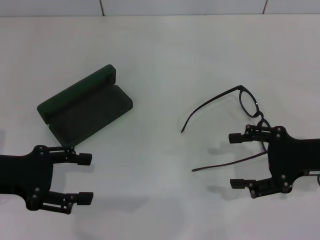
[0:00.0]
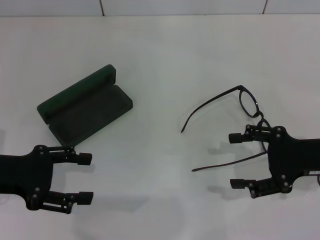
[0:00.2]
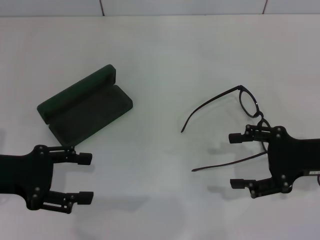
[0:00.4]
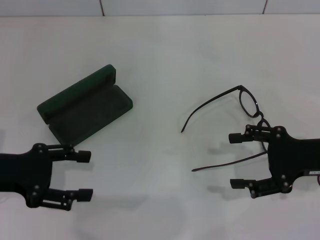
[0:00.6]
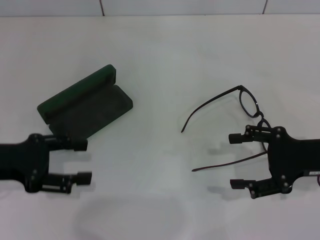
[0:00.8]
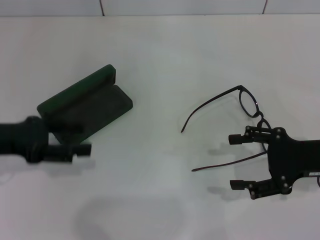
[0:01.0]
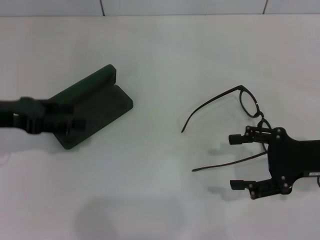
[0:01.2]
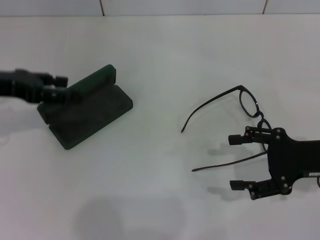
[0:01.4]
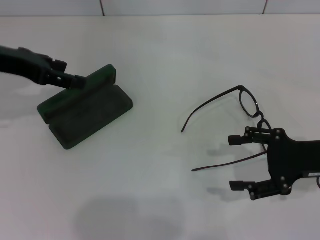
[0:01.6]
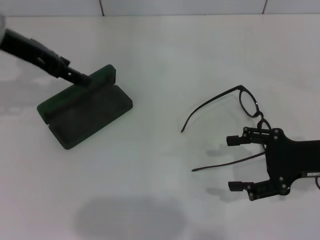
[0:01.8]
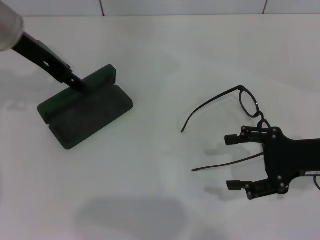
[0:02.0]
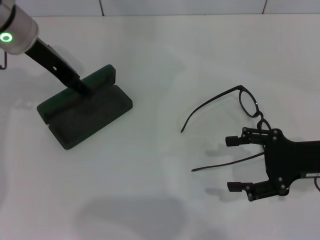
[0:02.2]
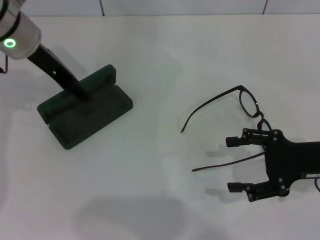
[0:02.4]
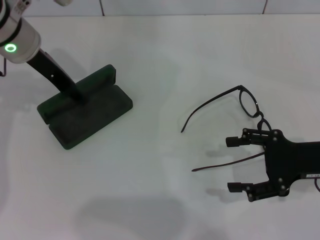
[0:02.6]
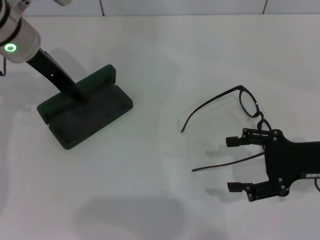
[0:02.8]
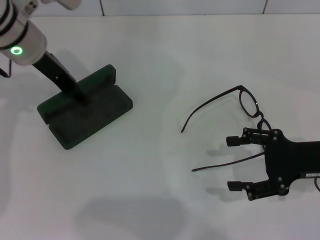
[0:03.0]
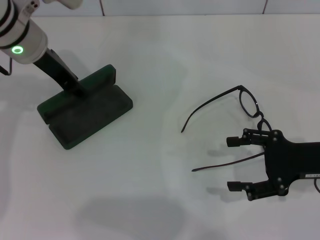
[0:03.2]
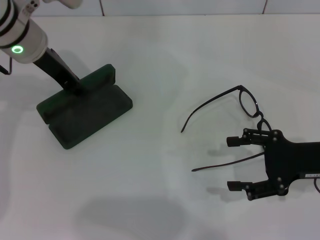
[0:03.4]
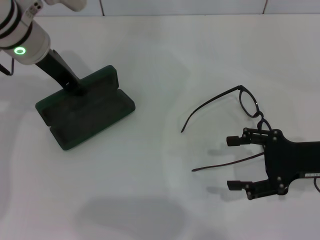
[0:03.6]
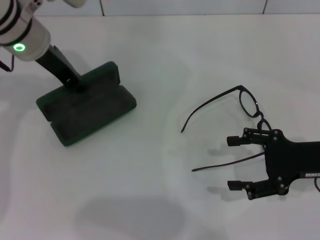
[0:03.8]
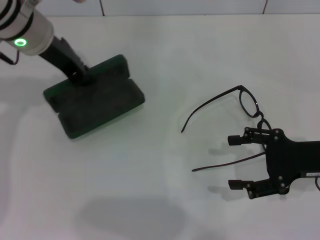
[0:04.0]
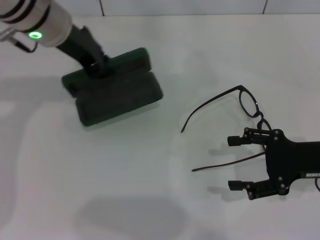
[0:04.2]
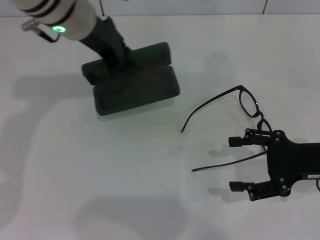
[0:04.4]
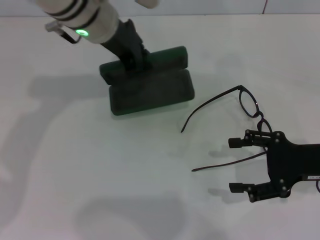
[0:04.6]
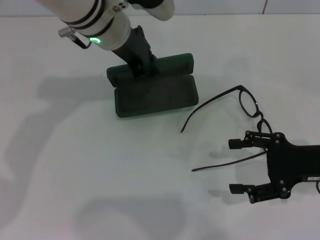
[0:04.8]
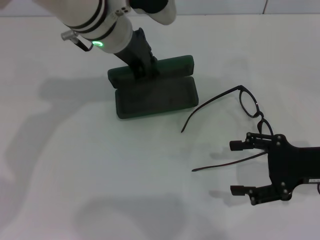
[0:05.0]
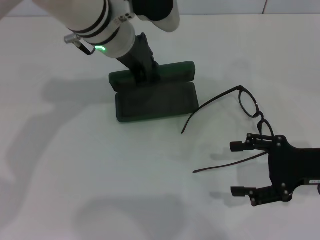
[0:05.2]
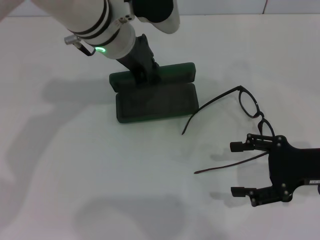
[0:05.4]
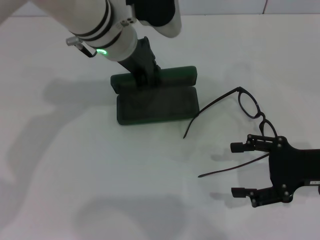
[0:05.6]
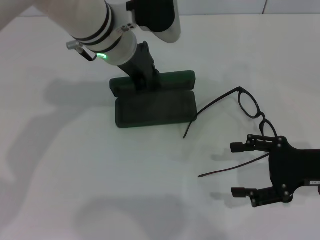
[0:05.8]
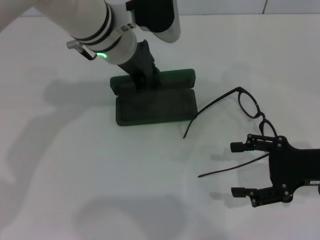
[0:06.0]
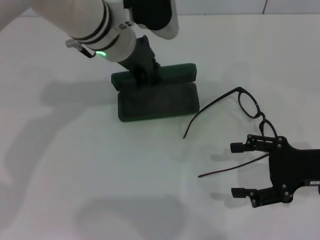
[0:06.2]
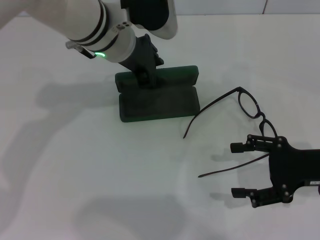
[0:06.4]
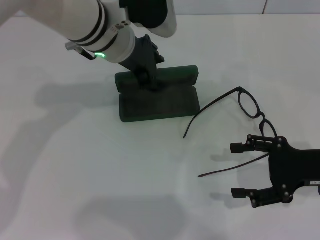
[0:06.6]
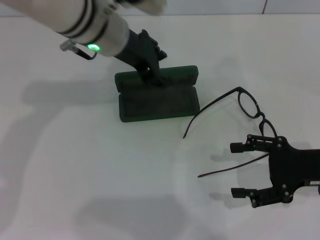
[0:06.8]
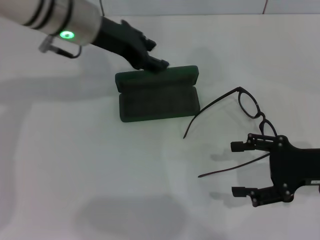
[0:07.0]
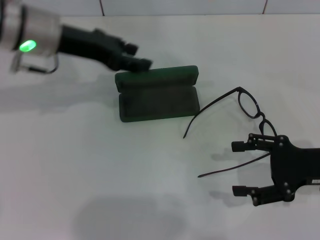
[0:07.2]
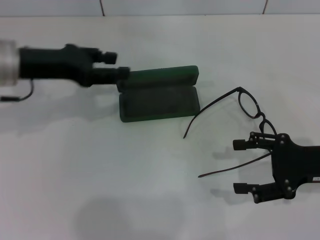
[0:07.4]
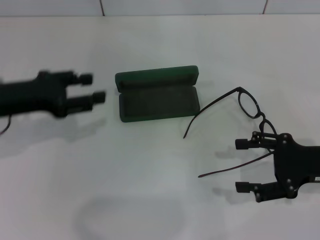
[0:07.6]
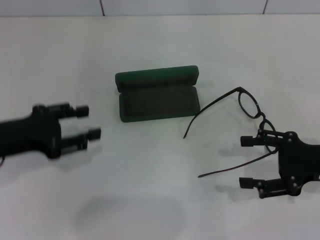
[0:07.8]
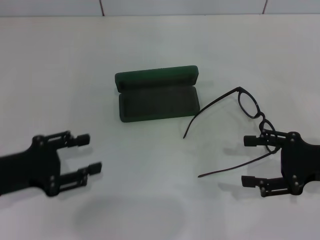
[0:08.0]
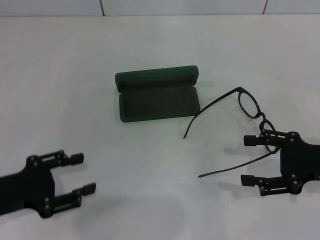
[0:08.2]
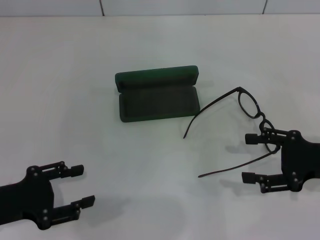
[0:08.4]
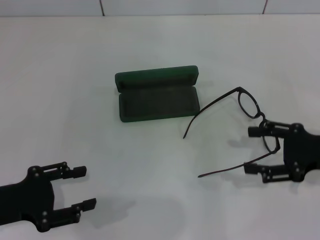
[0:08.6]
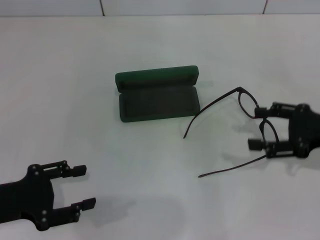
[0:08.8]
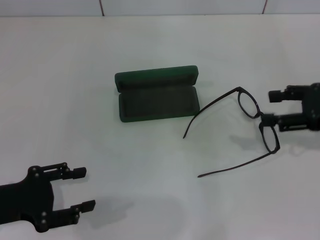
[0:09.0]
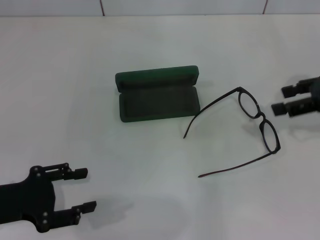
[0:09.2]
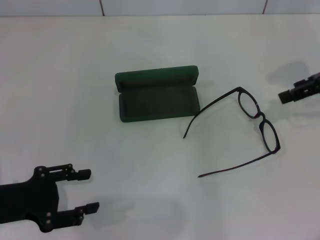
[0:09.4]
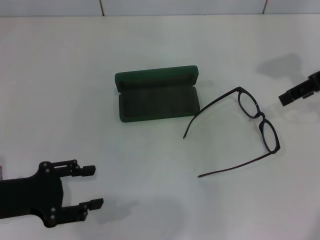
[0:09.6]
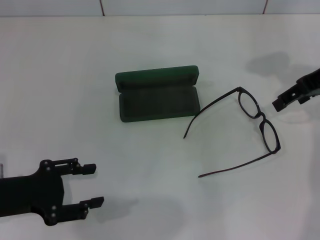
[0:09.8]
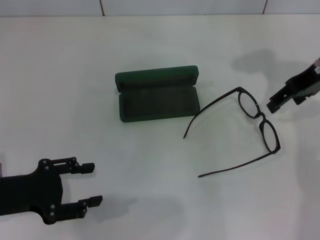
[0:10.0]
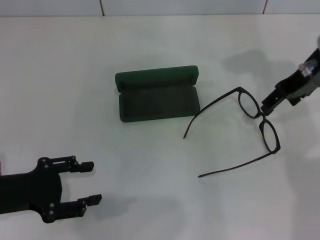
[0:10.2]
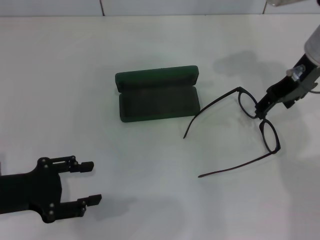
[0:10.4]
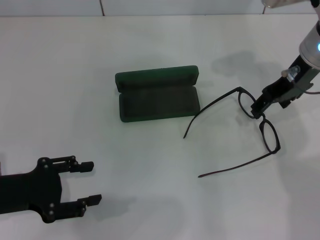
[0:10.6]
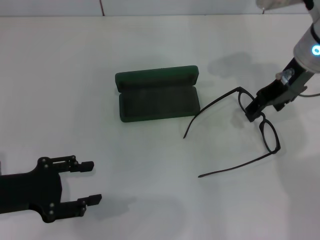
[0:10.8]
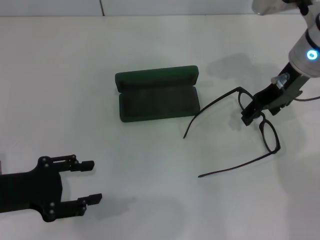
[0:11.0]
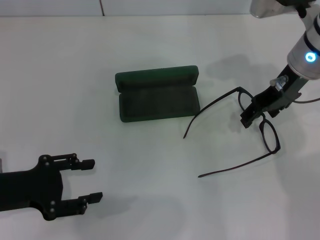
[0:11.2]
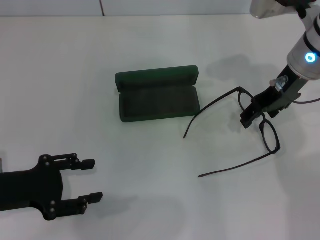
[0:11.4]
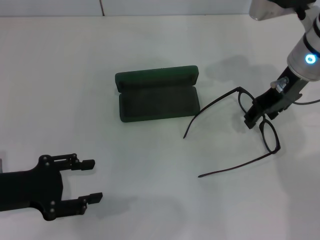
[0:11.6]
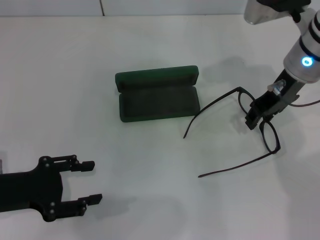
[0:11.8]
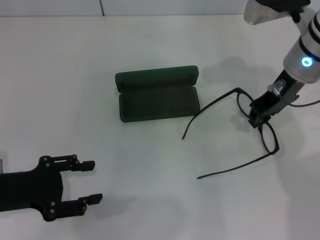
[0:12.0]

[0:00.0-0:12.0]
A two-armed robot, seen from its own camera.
Step, 0:00.0 to 0:03.2: Grab the glasses case with your left hand.
Step, 0:03.6 to 0:06.4: Place the glasses case in the center of the table with your left hand.
0:00.0 to 0:01.6: The left gripper is displaced forward and upward by approximately 15 cm.
0:01.6 to 0:03.0: The left gripper goes about 10 cm to the right.
0:03.0 to 0:04.4: The left gripper travels to the right by roughly 5 cm, and closes.
0:04.4 to 0:06.0: The left gripper moves to the right, approximately 5 cm.
0:06.0 to 0:07.6: The left gripper shifts roughly 20 cm to the left and backward, and opens up.
0:07.6 to 0:09.0: The left gripper goes roughly 15 cm backward and downward. Meanwhile the right gripper travels upward and forward by some 10 cm.
0:09.0 to 0:10.4: The right gripper is displaced to the left and forward by some 15 cm.
0:10.4 to 0:12.0: The right gripper closes its fingers.

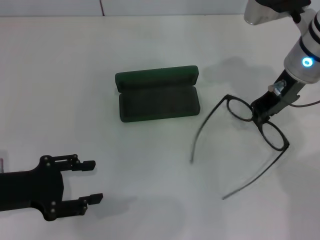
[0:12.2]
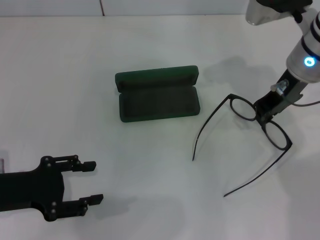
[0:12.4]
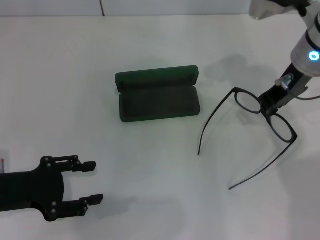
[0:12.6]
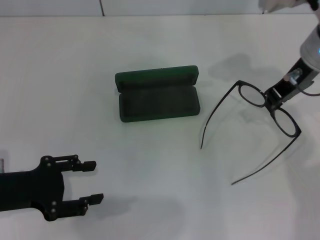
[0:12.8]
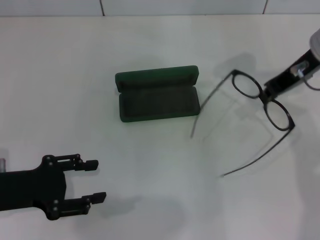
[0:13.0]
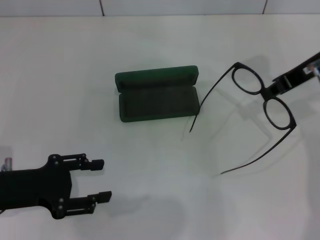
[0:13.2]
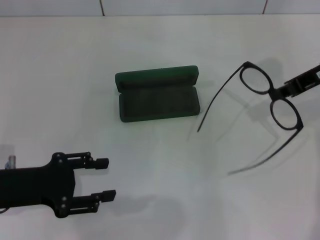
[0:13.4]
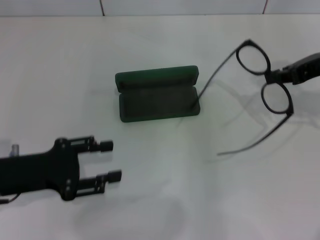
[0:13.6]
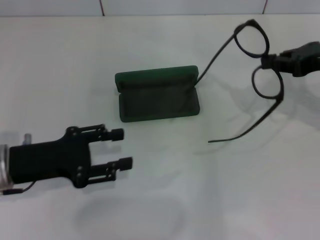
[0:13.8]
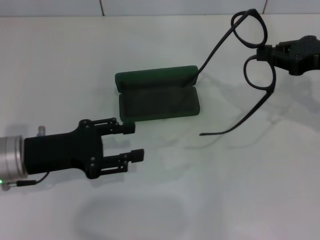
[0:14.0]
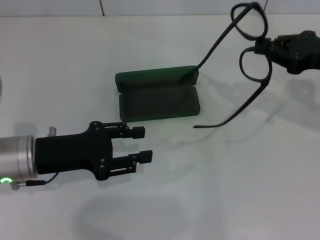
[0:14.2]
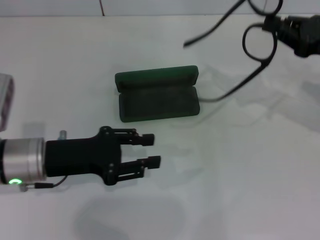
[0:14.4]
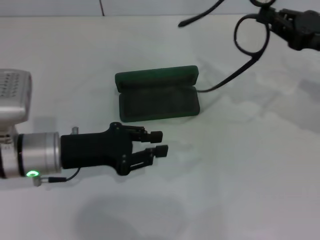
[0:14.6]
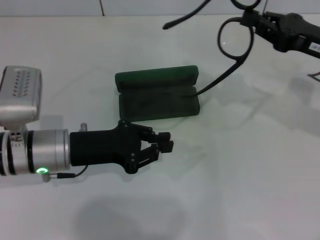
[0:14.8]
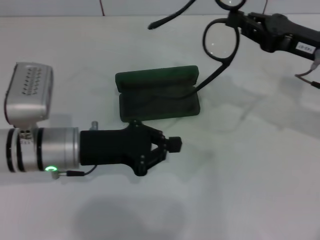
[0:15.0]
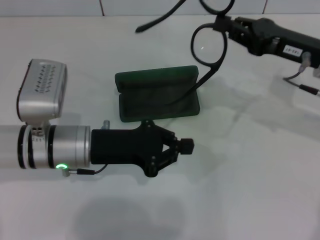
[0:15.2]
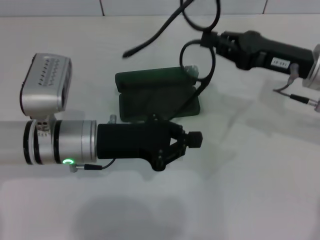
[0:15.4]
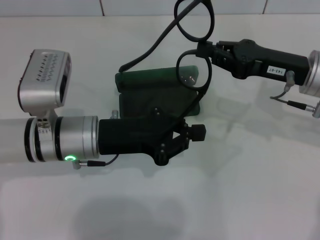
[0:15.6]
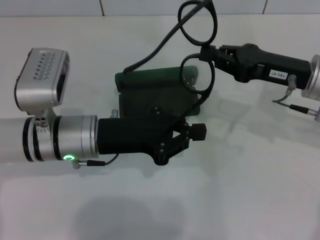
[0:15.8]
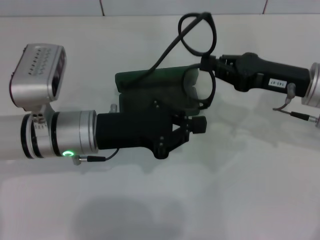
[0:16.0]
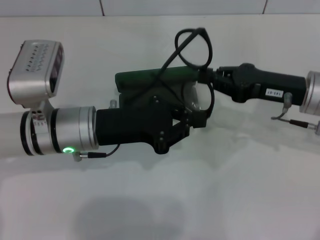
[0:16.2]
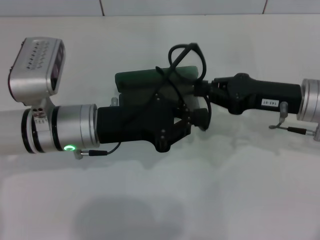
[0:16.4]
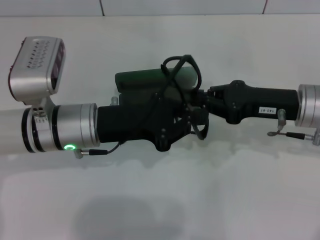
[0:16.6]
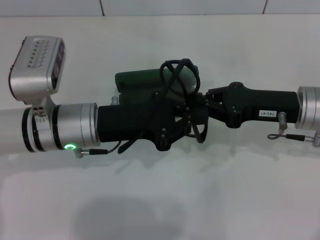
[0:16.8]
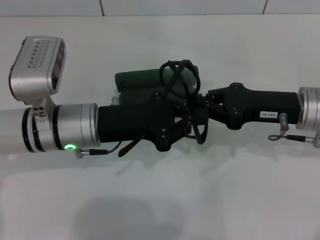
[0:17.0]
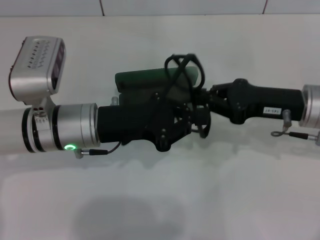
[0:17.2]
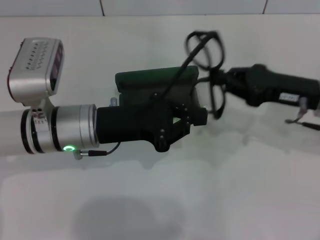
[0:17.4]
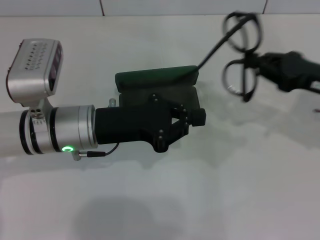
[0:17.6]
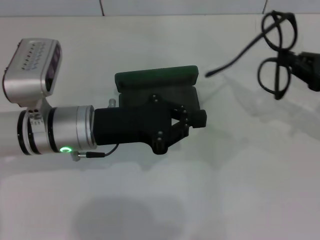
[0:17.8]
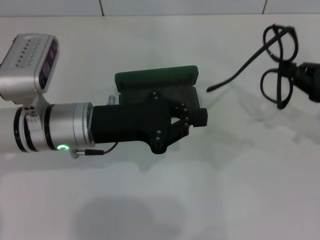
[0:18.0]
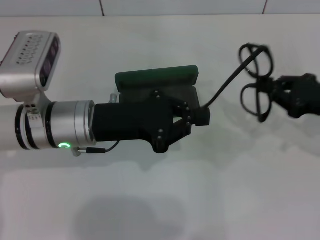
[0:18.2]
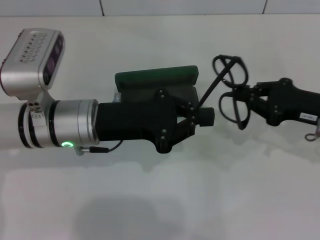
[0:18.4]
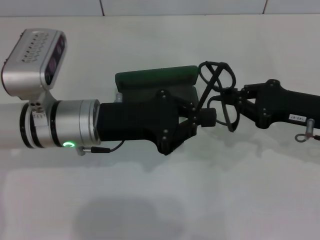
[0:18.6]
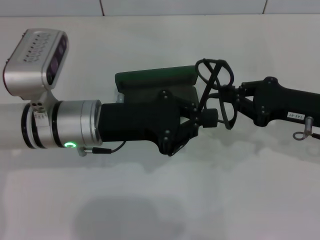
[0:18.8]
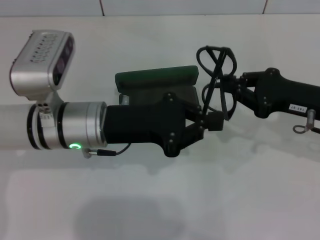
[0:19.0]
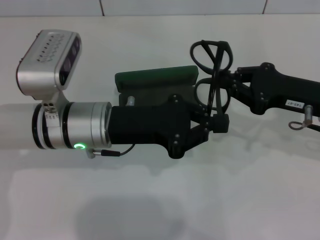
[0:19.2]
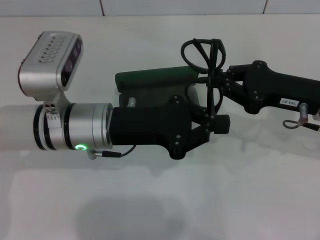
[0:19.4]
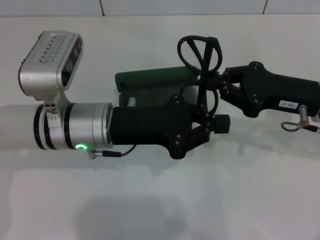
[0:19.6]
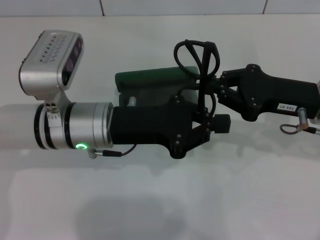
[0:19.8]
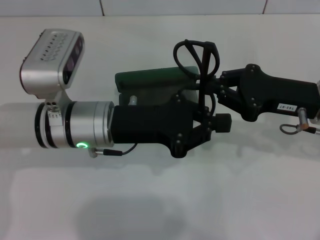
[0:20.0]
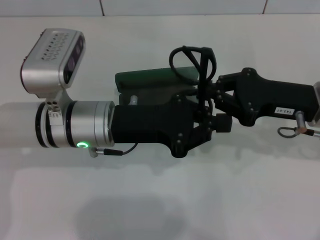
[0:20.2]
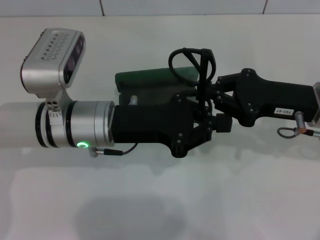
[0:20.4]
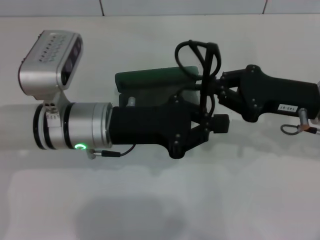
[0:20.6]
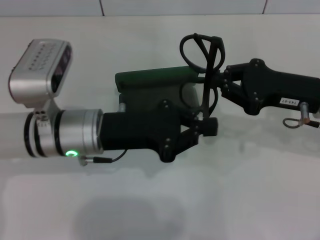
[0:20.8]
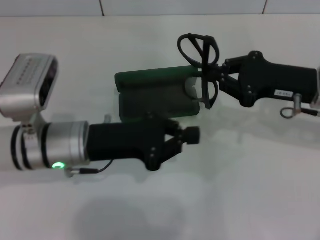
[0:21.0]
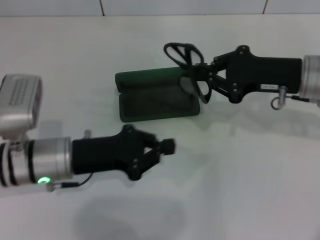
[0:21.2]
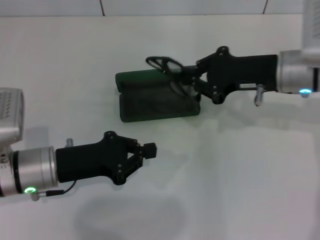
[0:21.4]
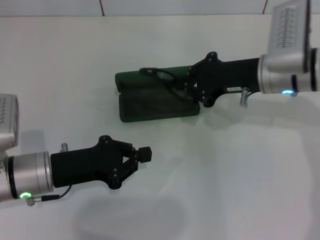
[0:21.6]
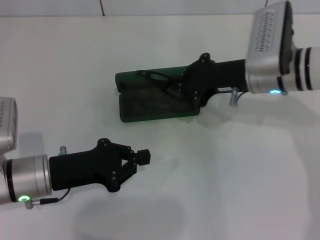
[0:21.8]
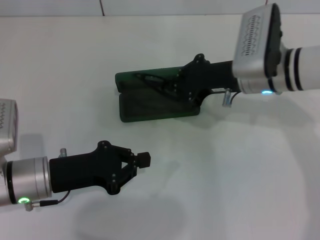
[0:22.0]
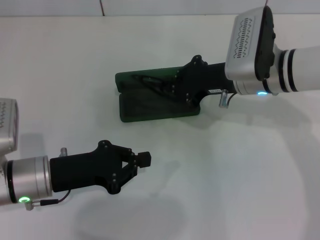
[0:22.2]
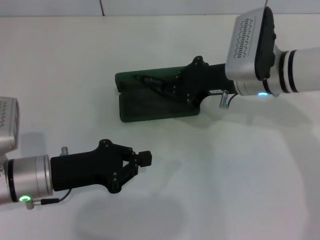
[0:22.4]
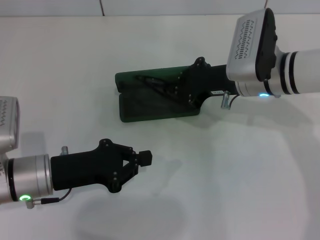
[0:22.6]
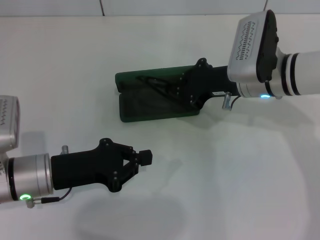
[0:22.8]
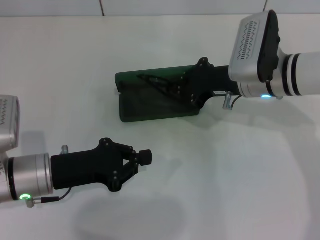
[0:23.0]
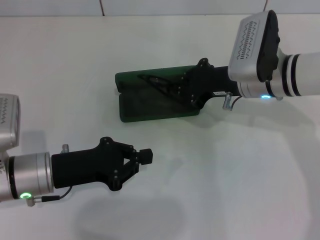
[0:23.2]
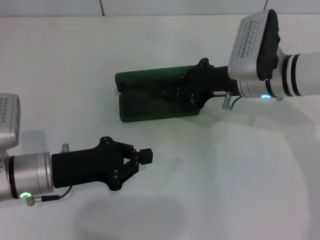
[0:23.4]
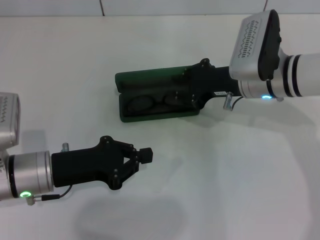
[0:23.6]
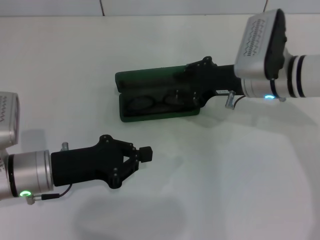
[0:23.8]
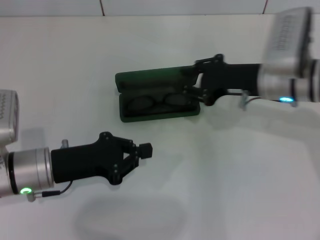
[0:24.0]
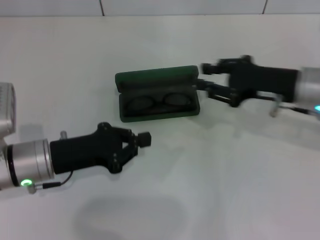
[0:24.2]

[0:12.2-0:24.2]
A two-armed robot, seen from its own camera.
Step, 0:12.4 to 0:19.6: Fold the frame with your left hand.
Step, 0:19.8 to 0:23.6: Put the glasses into the case with your right hand.
0:12.2 to 0:13.8: The right gripper travels to the right by some 10 cm.
0:13.8 to 0:15.2: The right gripper travels to the left by about 5 cm. Meanwhile the left gripper heads to the right, covering approximately 10 cm, and closes up.
0:15.2 to 0:16.6: The right gripper changes place by roughly 5 cm.
0:16.6 to 0:18.2: The right gripper travels to the right by about 10 cm.
0:18.2 to 0:19.8: The right gripper moves to the left, approximately 5 cm.
0:19.8 to 0:21.2: The left gripper goes some 5 cm to the left.
0:21.2 to 0:22.6: The right gripper shifts some 10 cm to the left.
0:22.6 to 0:24.2: The right gripper goes some 10 cm to the right.
